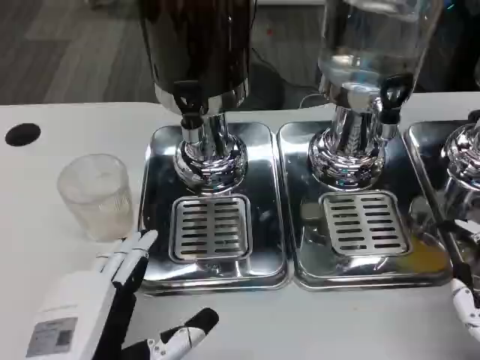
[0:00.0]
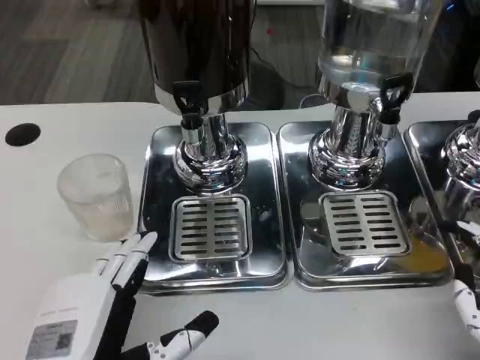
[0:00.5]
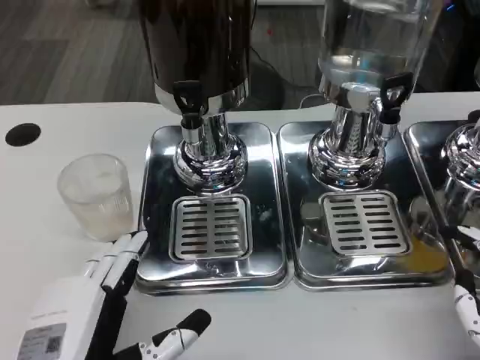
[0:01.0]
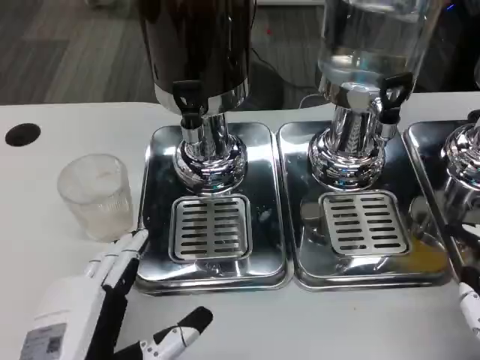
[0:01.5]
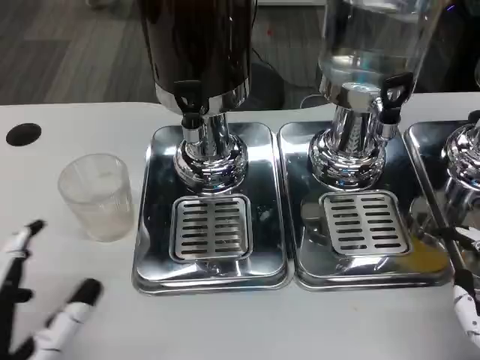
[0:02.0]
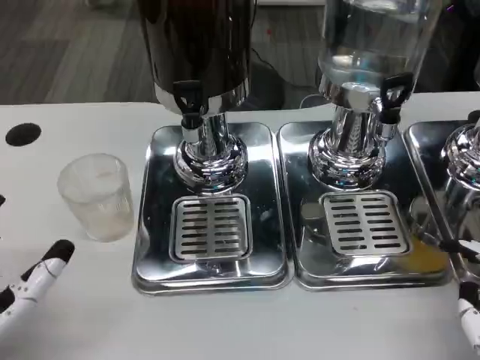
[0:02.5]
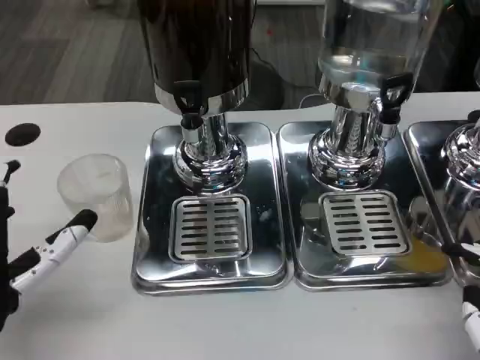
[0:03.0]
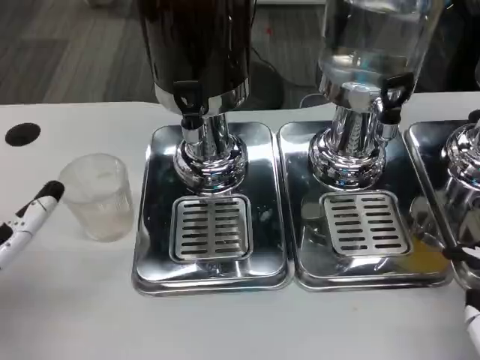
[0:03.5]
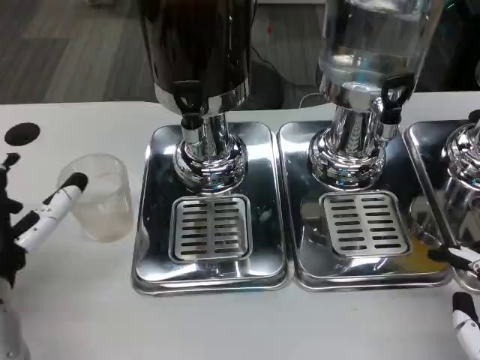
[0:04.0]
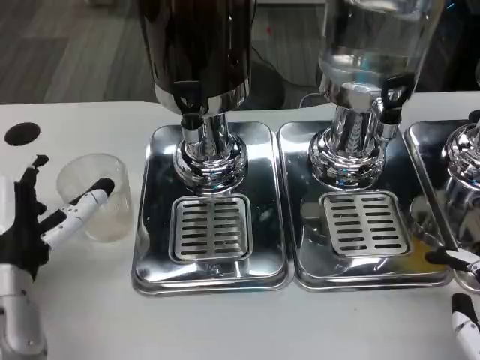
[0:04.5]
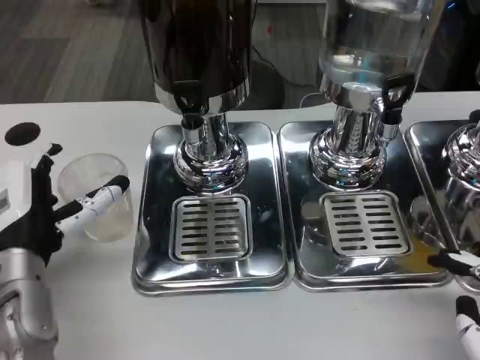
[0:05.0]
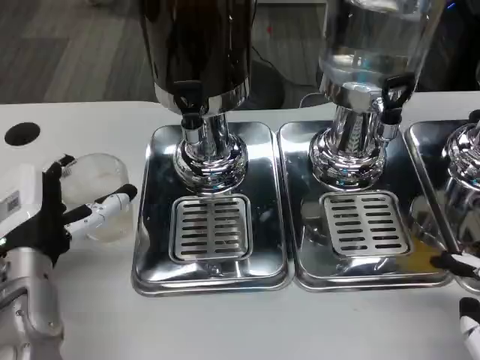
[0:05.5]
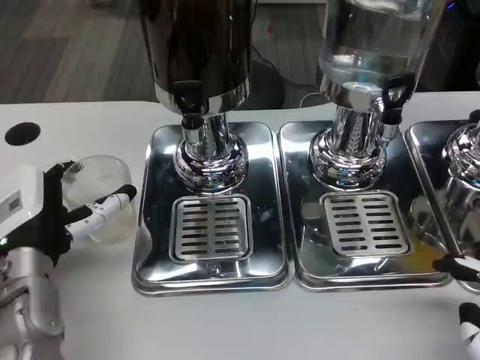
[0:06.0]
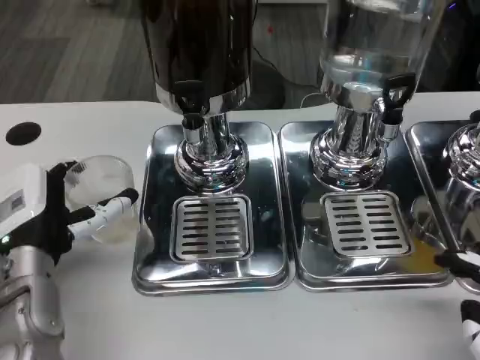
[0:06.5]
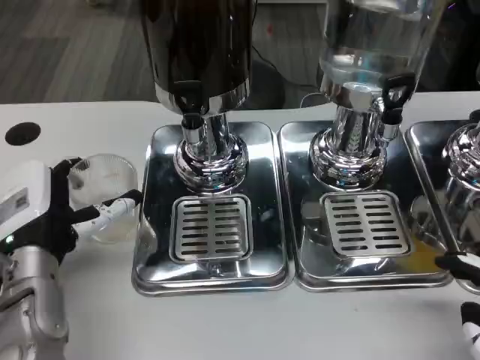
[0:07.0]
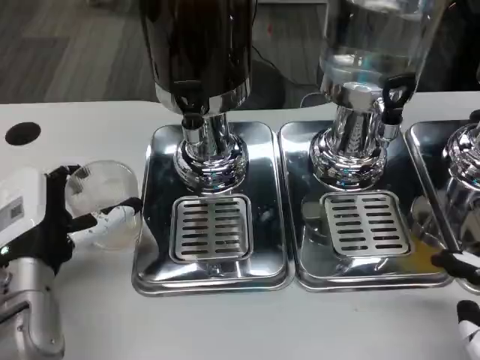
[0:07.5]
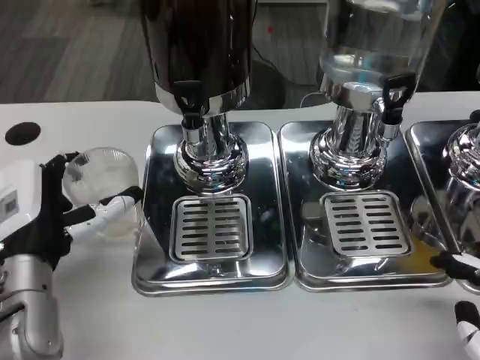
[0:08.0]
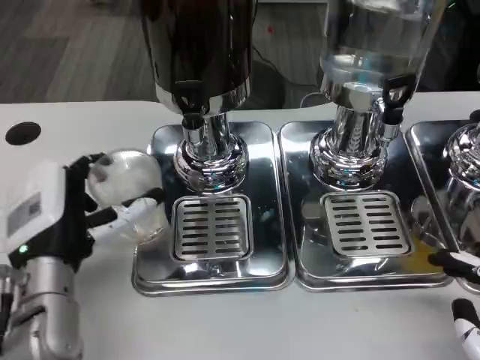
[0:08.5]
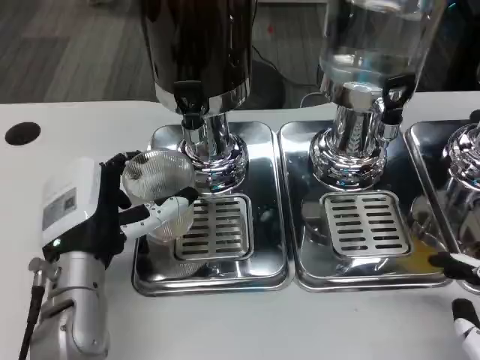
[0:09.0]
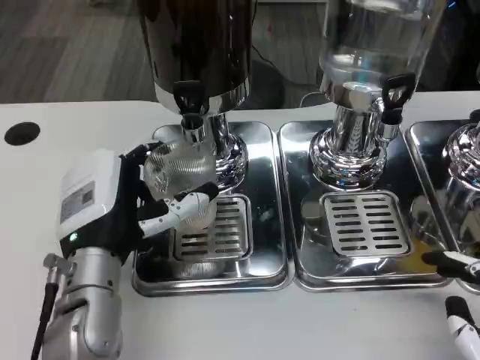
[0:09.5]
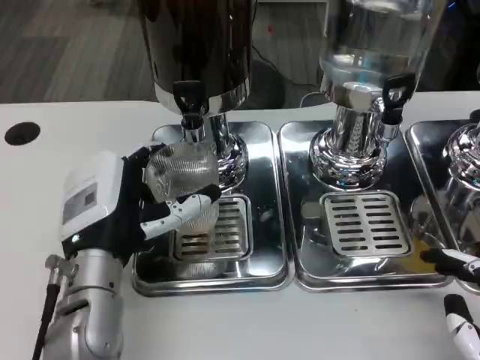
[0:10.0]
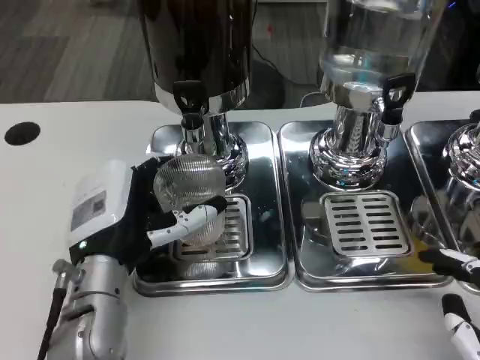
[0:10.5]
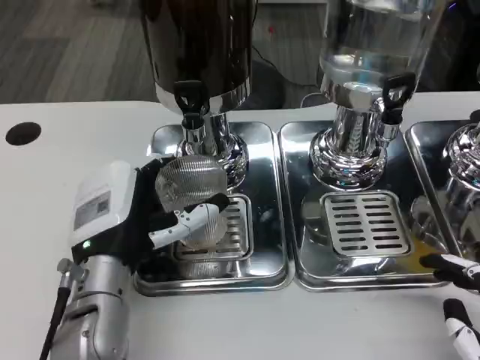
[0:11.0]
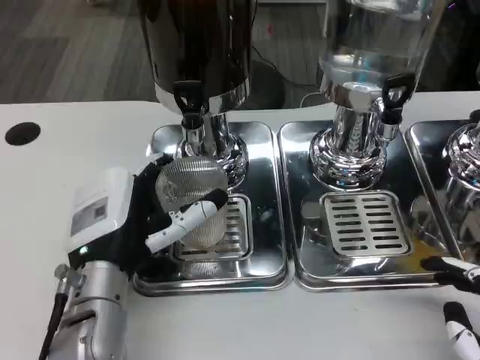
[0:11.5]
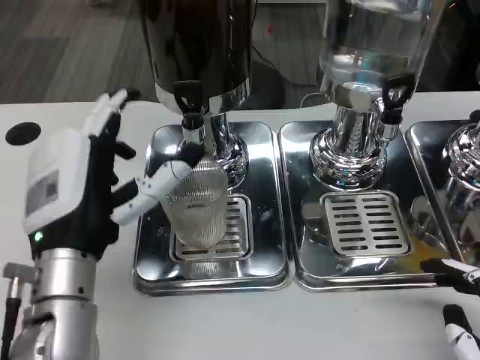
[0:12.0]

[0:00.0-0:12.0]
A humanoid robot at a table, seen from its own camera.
Task of the whole recording: Grasp the cup under the faucet to collect the drink, then remove the cup.
0:02.0 to 0:04.0: The left hand heads forward, covering about 15 cm.
0:04.0 to 0:08.0: The hands stay close to where they were, moving slightly.
0:08.0 to 0:10.0: The left hand moves to the right, about 5 cm.
0:10.0 to 0:12.0: The hands move only a little.

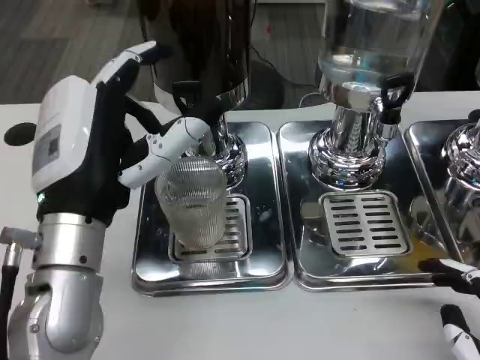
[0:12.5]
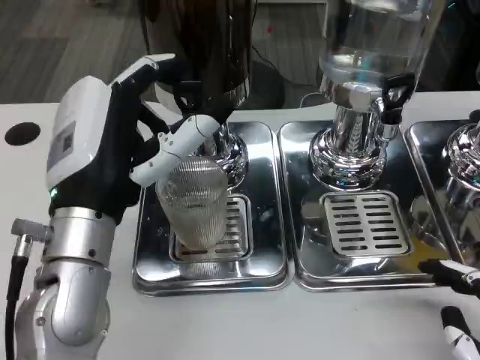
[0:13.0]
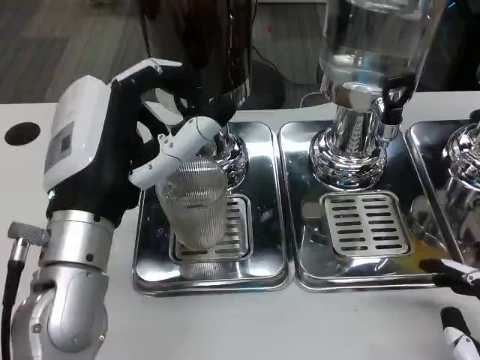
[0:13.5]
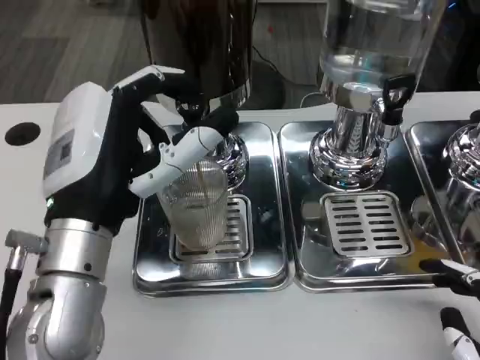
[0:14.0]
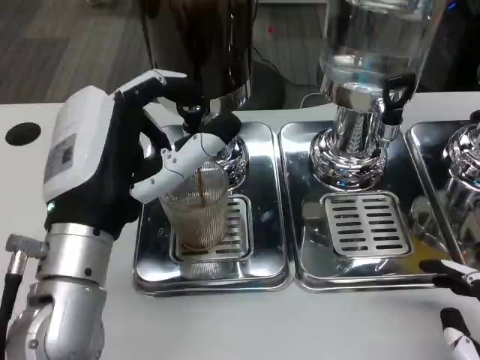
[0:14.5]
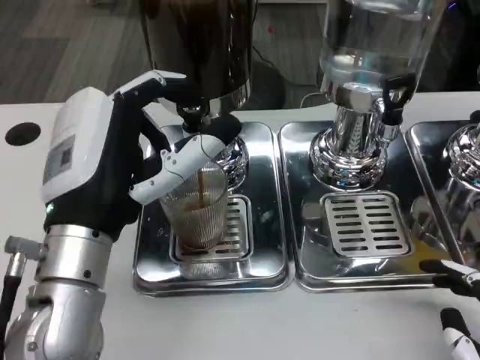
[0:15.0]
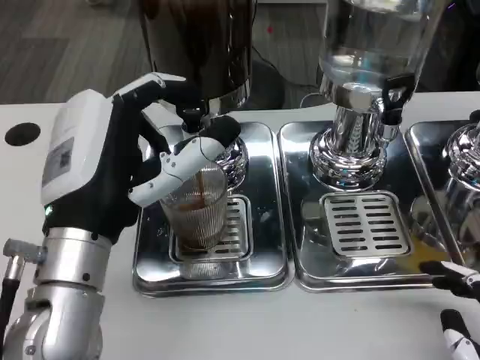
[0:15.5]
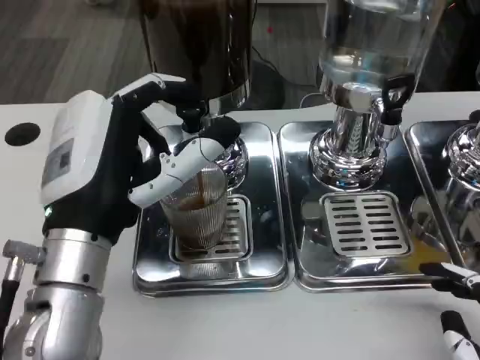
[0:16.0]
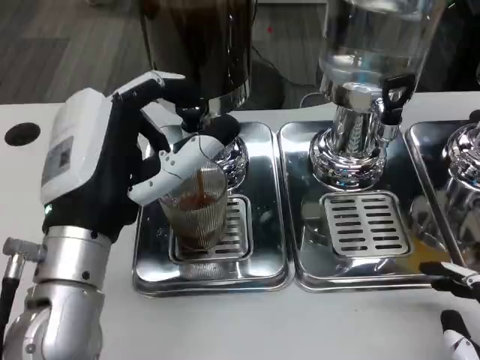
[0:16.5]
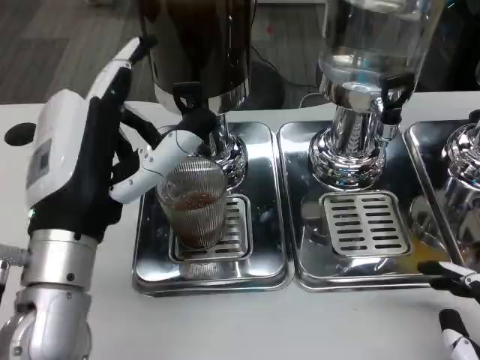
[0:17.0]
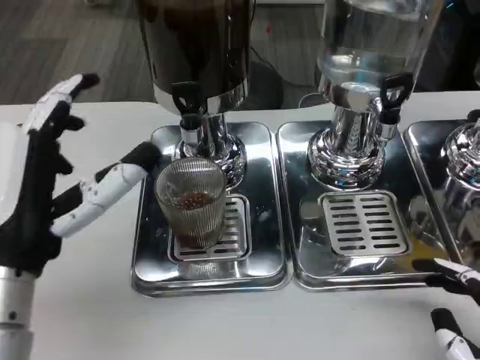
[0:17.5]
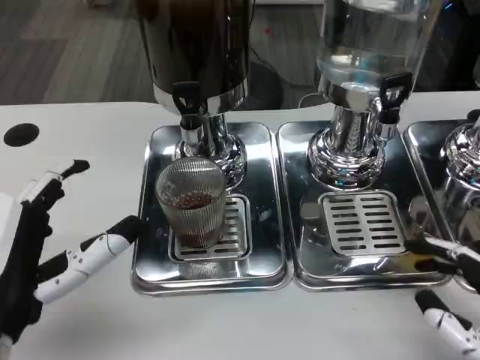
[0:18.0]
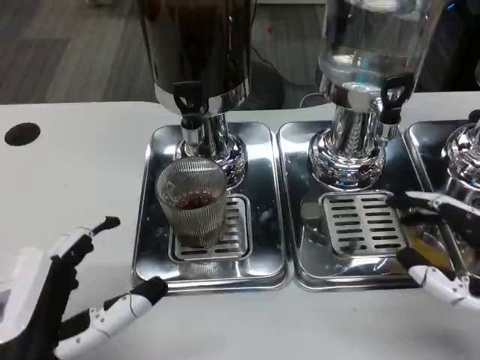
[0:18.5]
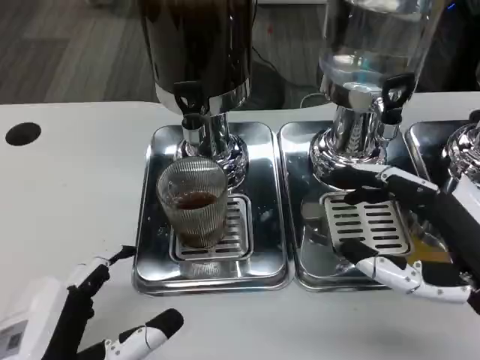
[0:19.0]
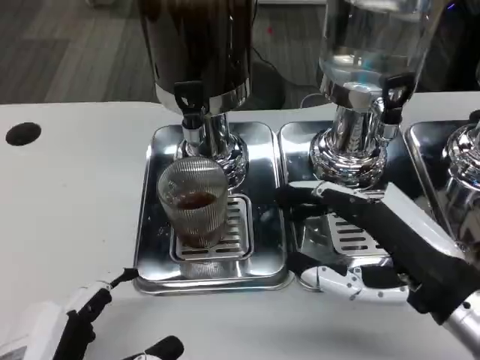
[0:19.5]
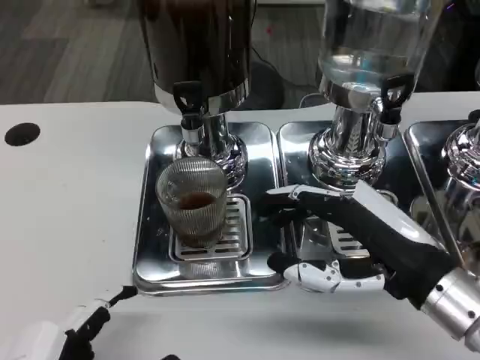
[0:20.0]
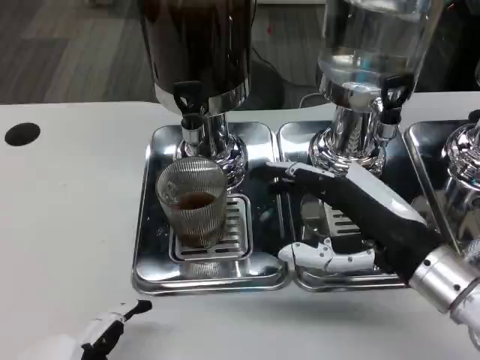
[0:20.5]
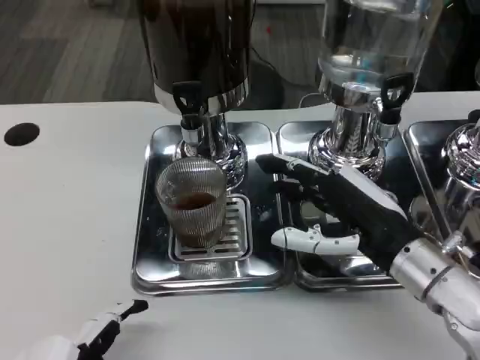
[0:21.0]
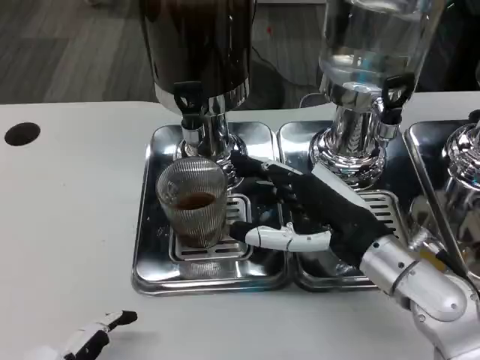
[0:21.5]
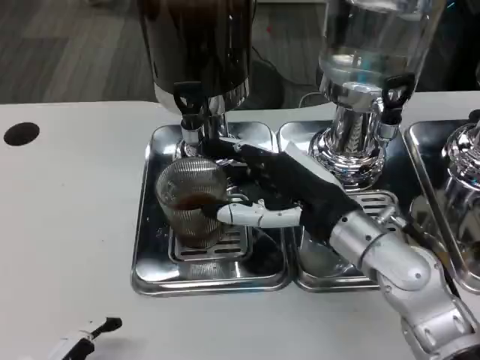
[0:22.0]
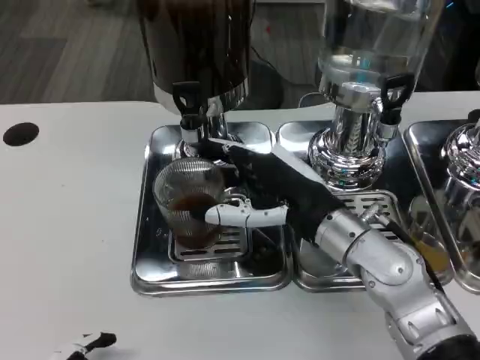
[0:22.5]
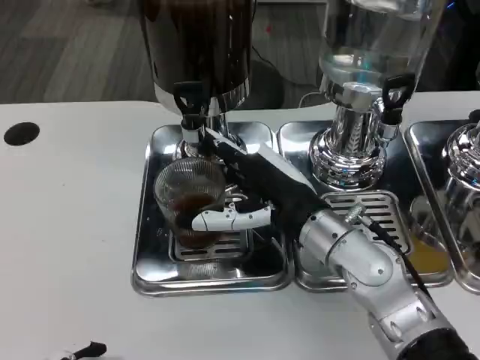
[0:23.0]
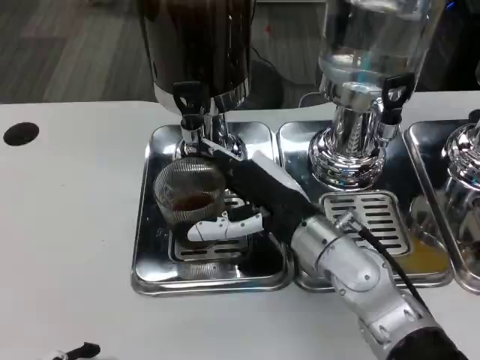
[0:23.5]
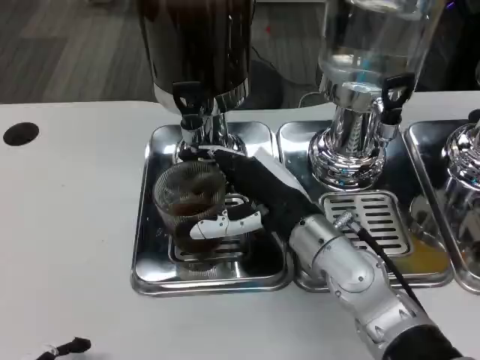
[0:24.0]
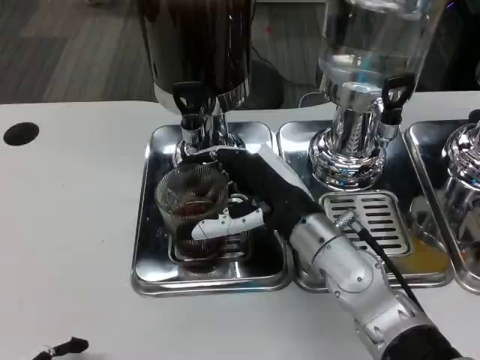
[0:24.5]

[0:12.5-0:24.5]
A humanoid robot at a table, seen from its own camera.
Task of the whole recording: Grasp the cup under the faucet to collect the drink, then remove the cup.
0:14.5 to 0:16.5: Both hands stay put.
0:16.5 to 0:18.5: The right hand moves forward, some 10 cm, while the left hand is displaced backward and to the left by approximately 10 cm.
0:18.5 to 0:20.5: The left hand shifts some 5 cm backward; the right hand moves to the left and forward, roughly 10 cm.
0:20.5 to 0:22.5: The right hand heads to the left and forward, covering about 10 cm.
0:22.5 to 0:24.5: The hands make only small movements.

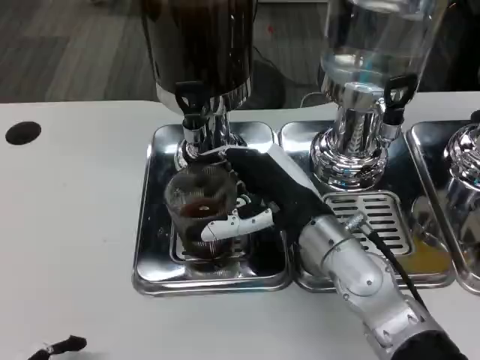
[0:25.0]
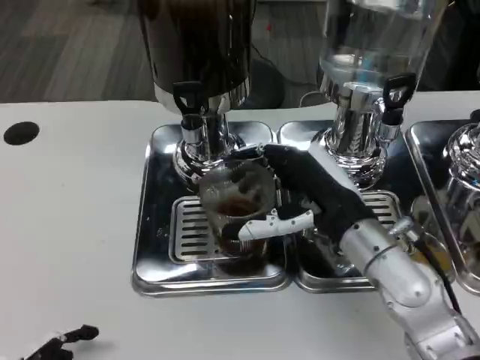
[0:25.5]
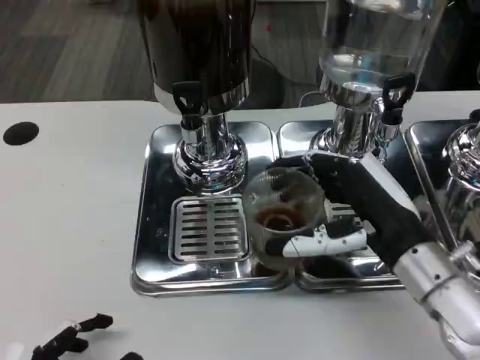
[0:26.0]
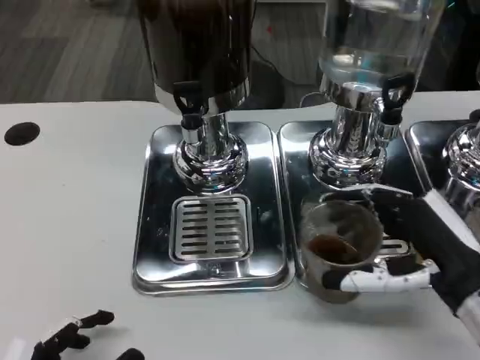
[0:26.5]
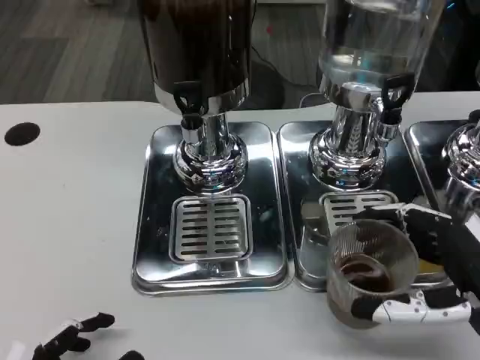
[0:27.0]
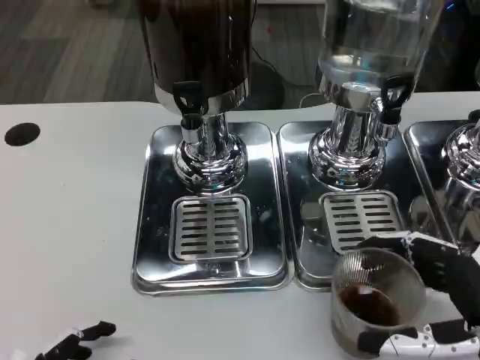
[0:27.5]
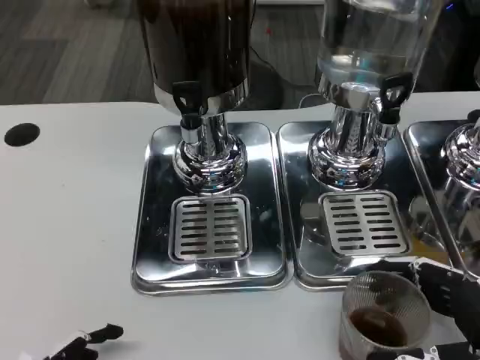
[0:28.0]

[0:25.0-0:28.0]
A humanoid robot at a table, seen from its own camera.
Task of the whole recording: Grasp the cup under the faucet to collect the drink, then remove the cup.
0:25.0 to 0:26.5: The right hand heads to the right and backward, covering approximately 15 cm.
0:26.5 to 0:28.0: The right hand travels backward by approximately 5 cm.
